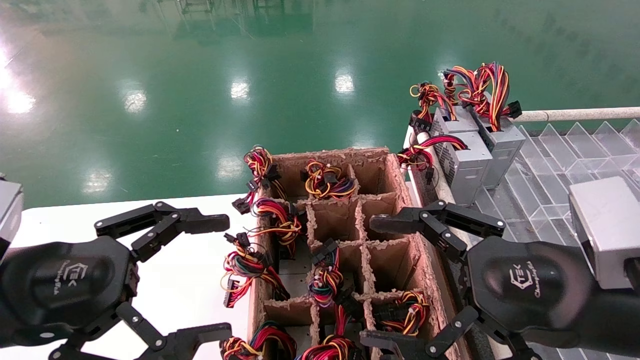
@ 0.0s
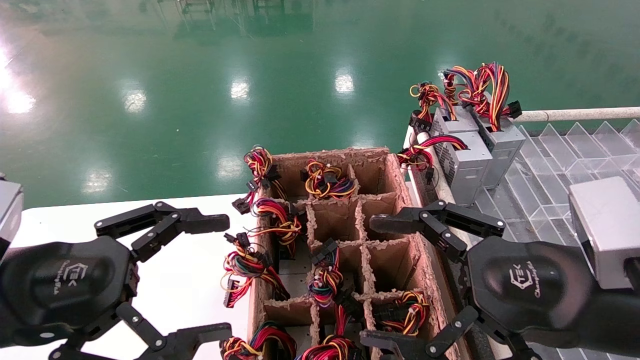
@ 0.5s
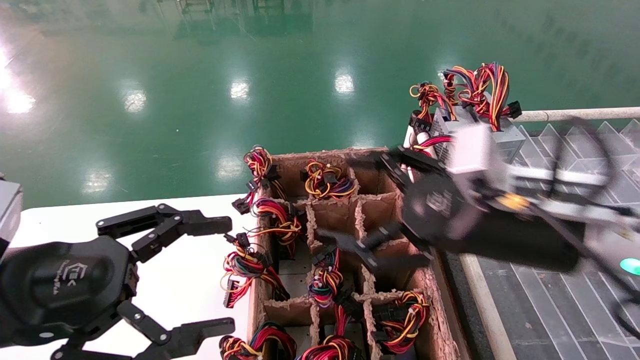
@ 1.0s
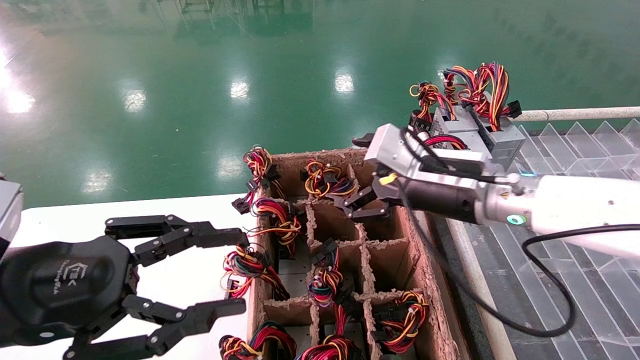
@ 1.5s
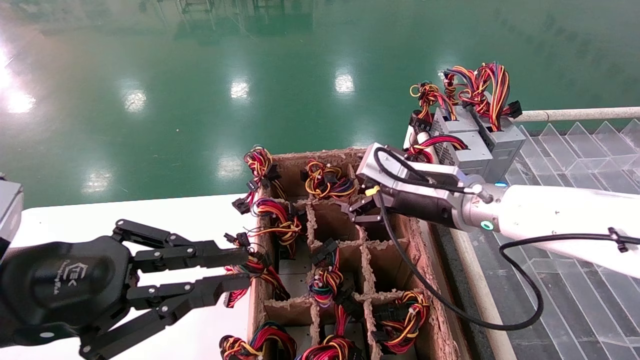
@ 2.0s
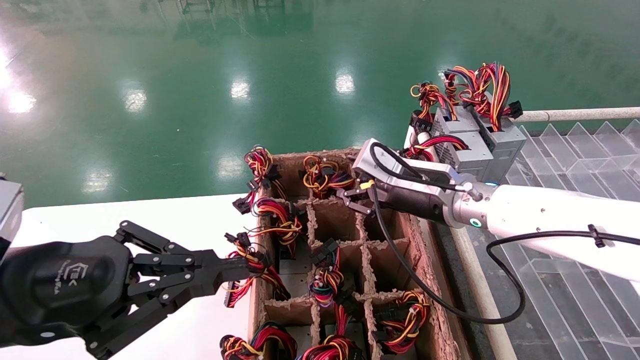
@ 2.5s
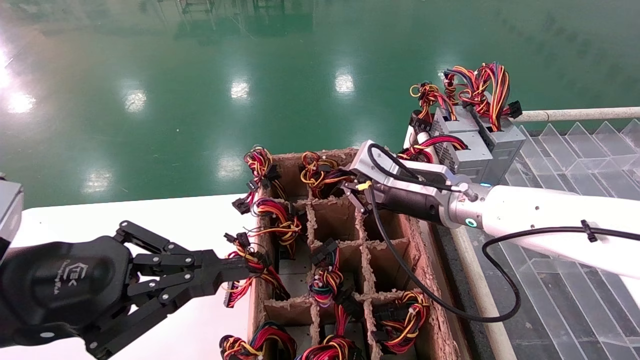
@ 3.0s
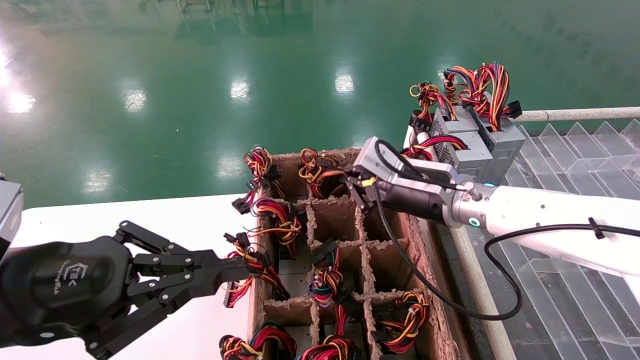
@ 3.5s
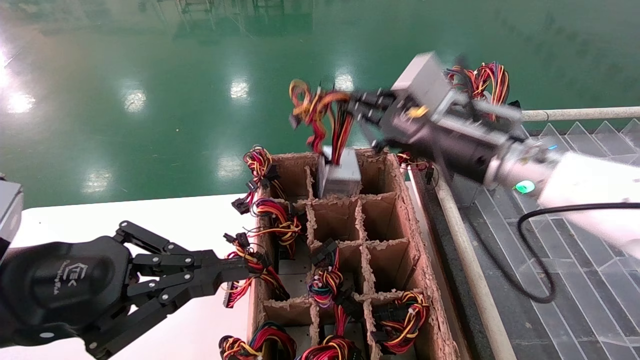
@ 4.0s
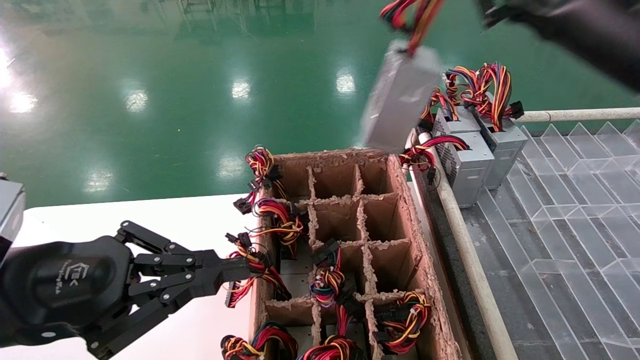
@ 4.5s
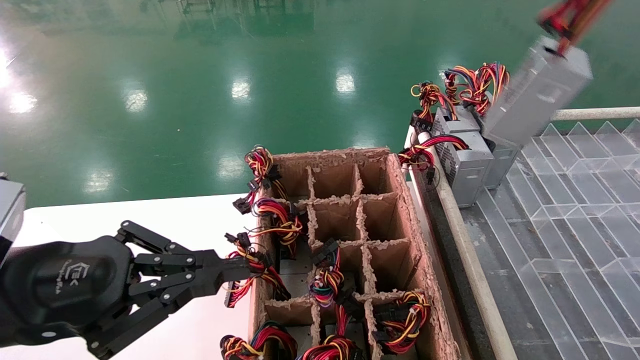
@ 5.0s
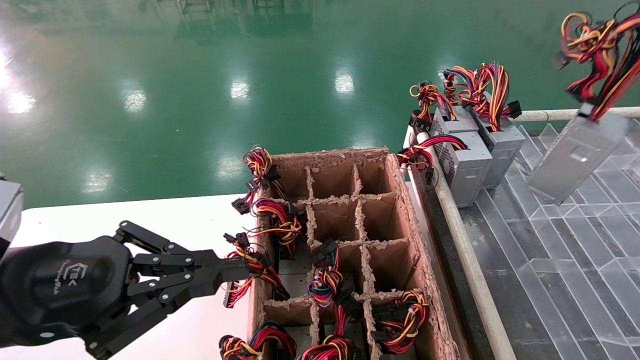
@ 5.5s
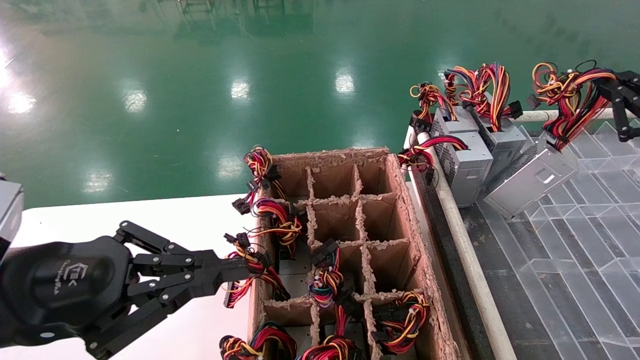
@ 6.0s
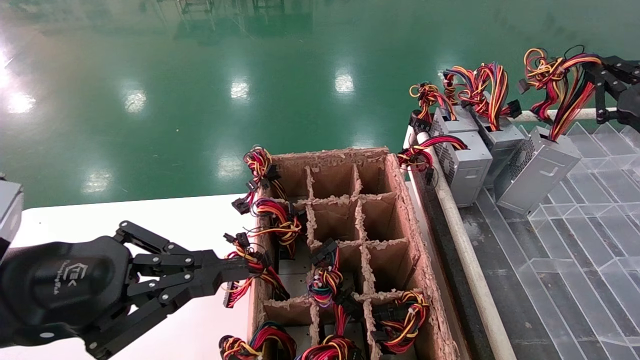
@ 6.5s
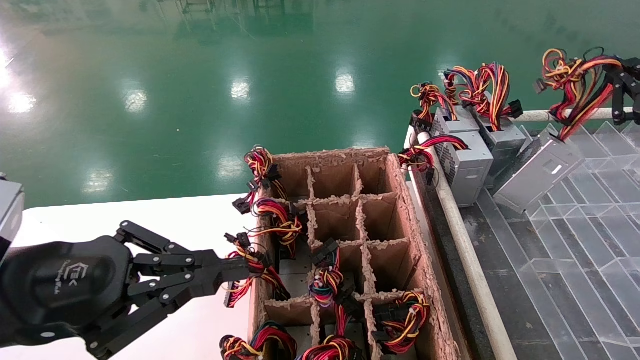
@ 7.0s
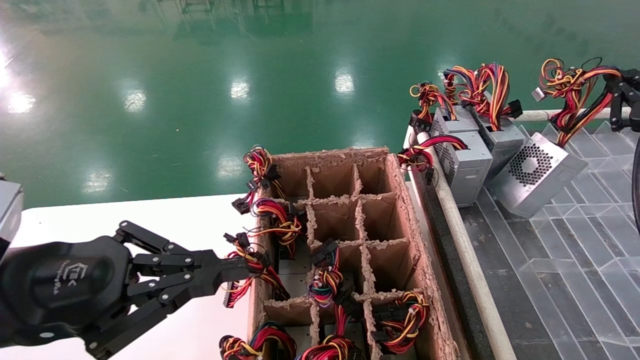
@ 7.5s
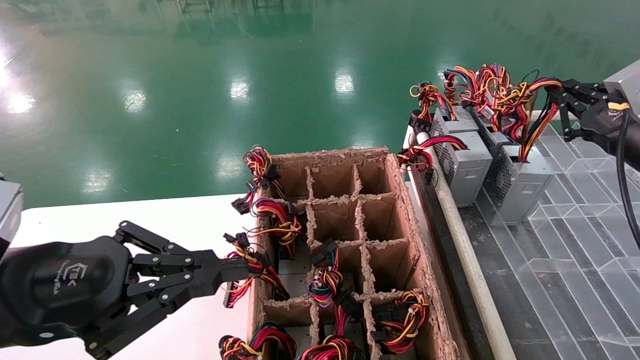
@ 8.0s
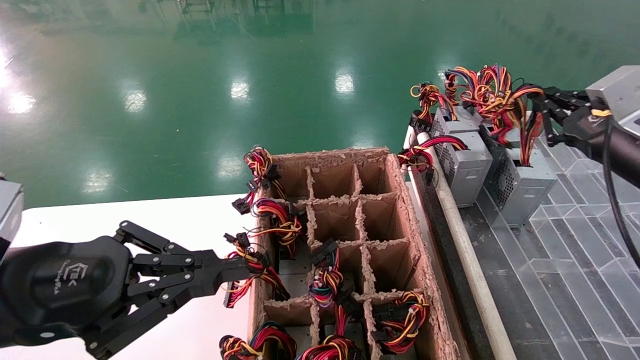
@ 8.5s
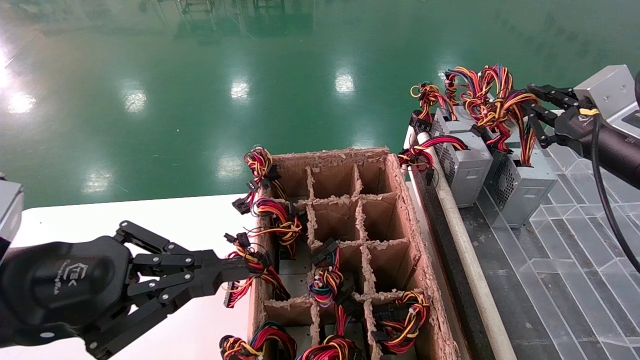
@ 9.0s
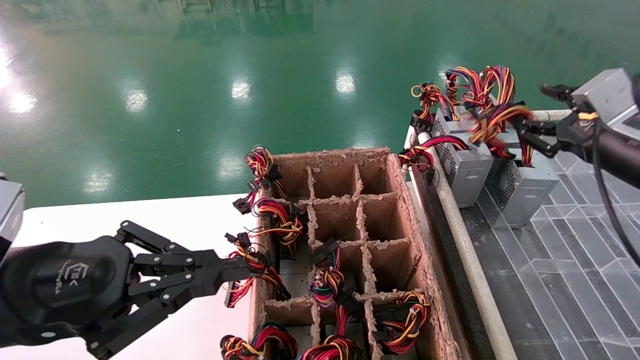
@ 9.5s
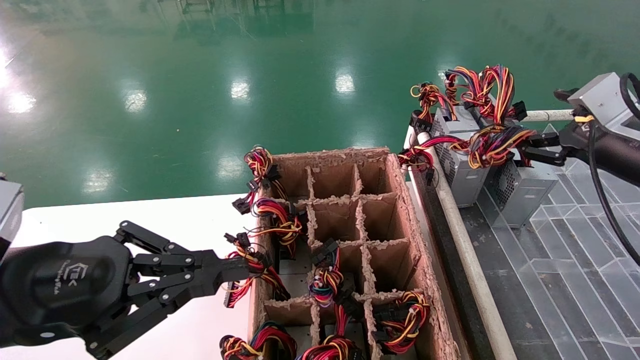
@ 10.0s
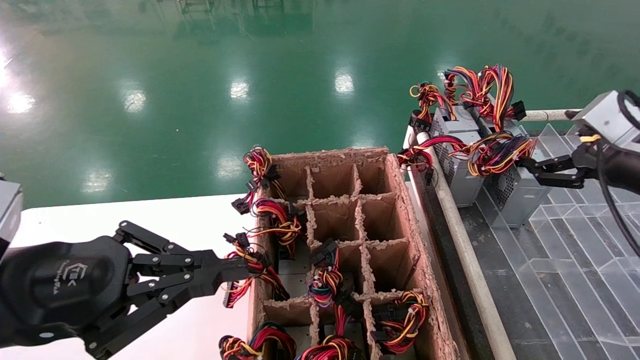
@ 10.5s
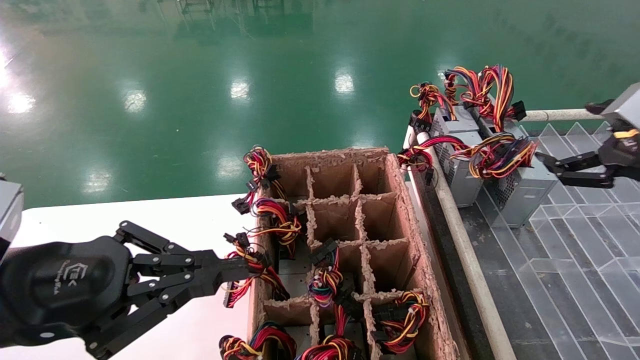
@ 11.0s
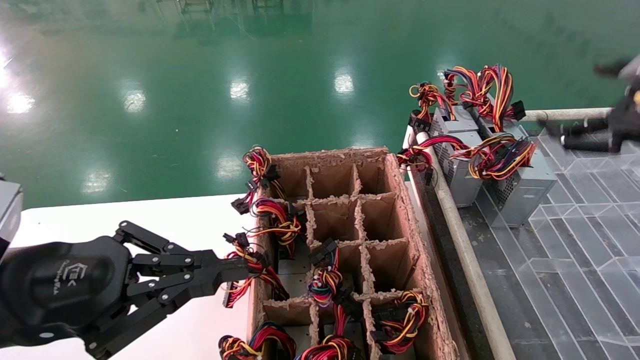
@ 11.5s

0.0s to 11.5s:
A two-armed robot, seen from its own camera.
Step, 1.5s to 3.0s: Grab the main unit power supply from the containment box.
Step, 3.5s to 11.0s: Place the main unit power supply in the designated area.
0.0s to 2.0s: The left gripper closes up. The right gripper shifts roughly 20 cm forward.
2.0s to 4.0s: The right gripper moves upward, some 10 cm, and closes up.
4.0s to 6.0s: The right gripper goes some 25 cm to the right.
6.0s to 7.5s: The right gripper is displaced forward by roughly 5 cm.
7.5s to 9.5s: The right gripper opens up.
9.5s to 11.5s: The right gripper travels backward by about 5 cm, and opens its fingers.

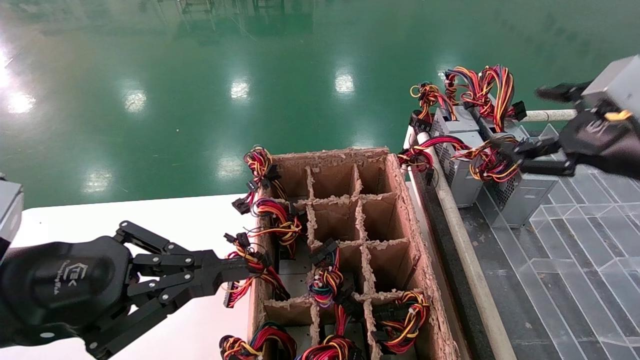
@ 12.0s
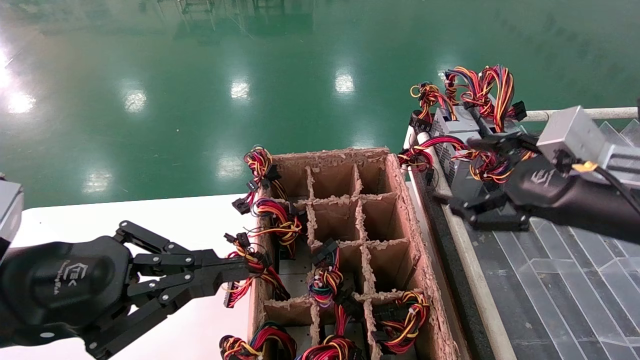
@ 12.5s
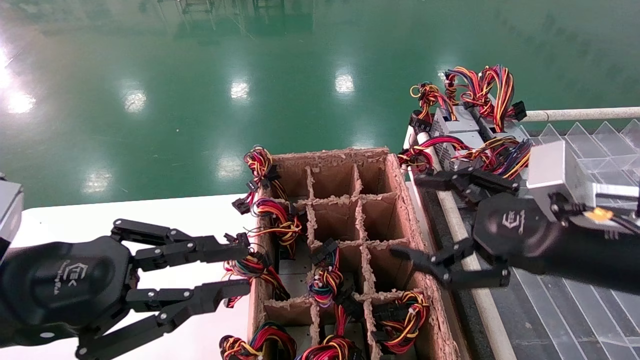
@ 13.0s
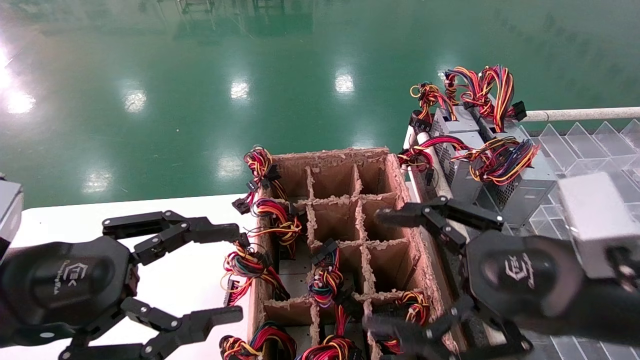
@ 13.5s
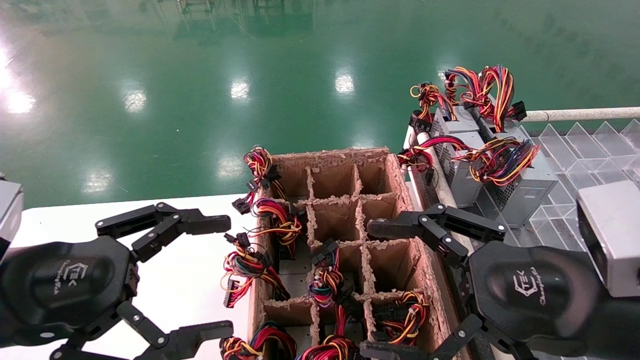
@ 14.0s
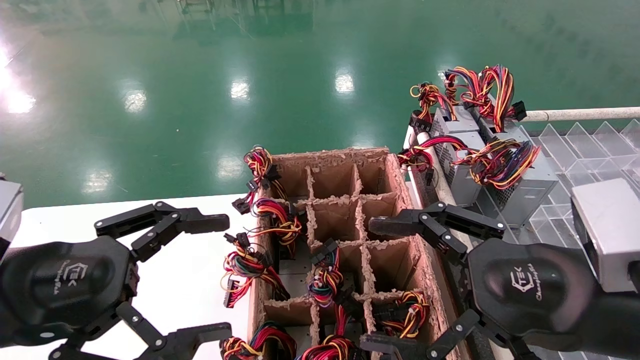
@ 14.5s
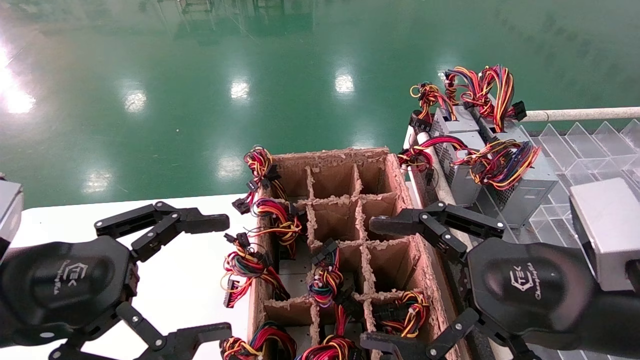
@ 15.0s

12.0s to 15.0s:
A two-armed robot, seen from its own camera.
12.0s to 13.5s: The left gripper opens up; the right gripper shifts approximately 15 cm to the left, backward and downward.
13.5s to 15.0s: The left gripper opens its fingers.
